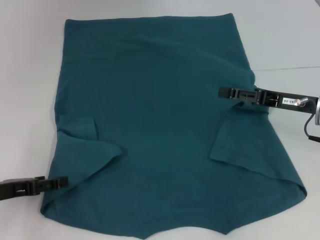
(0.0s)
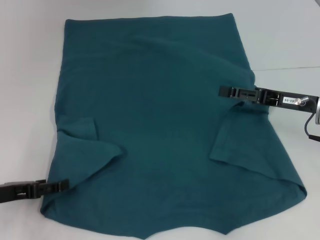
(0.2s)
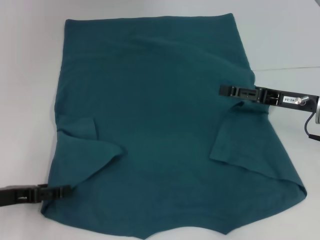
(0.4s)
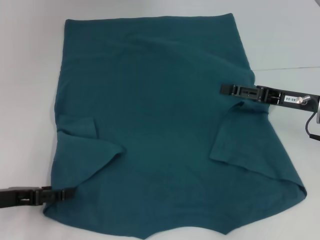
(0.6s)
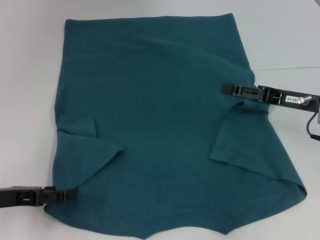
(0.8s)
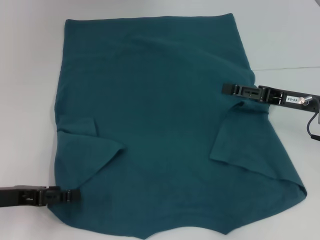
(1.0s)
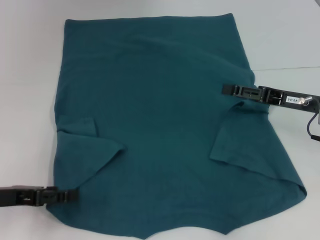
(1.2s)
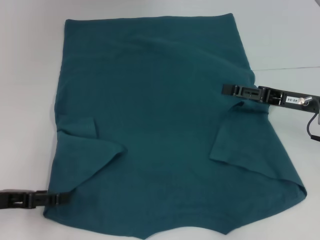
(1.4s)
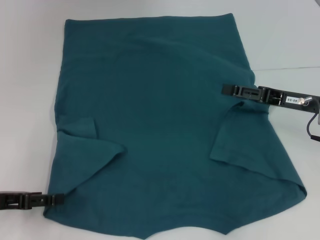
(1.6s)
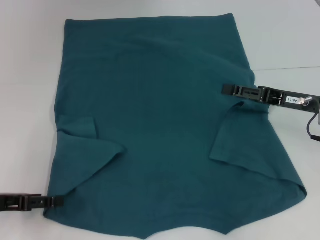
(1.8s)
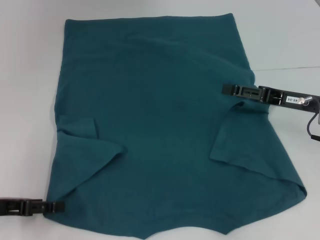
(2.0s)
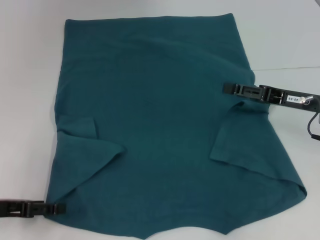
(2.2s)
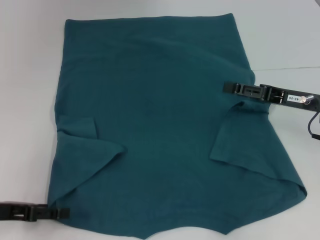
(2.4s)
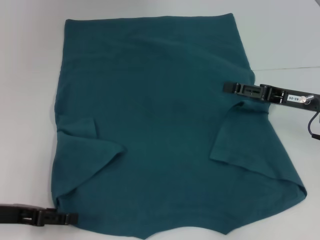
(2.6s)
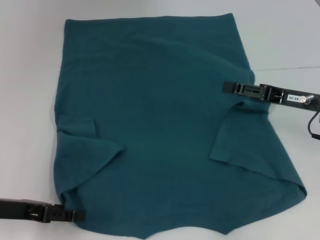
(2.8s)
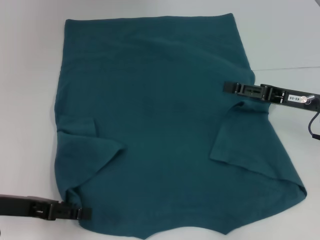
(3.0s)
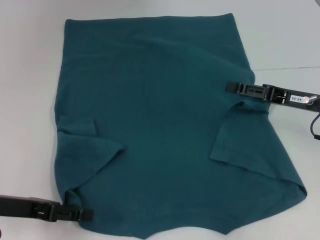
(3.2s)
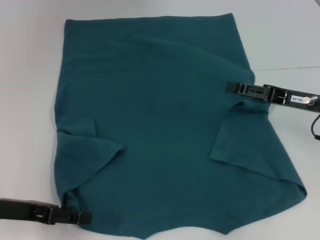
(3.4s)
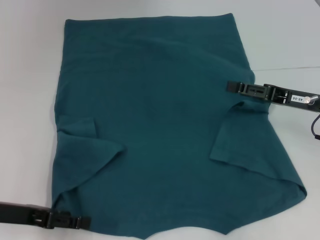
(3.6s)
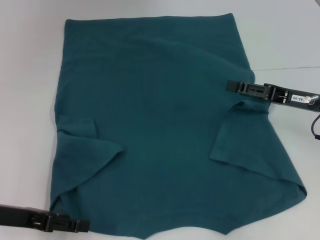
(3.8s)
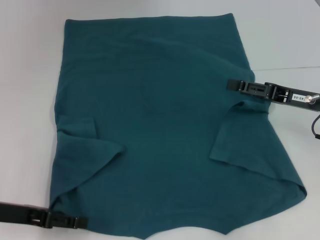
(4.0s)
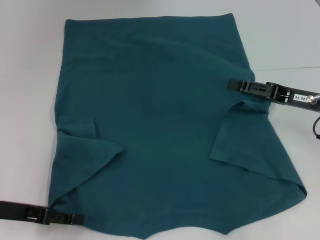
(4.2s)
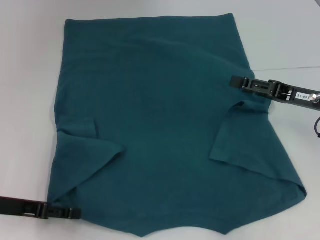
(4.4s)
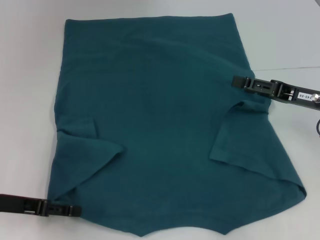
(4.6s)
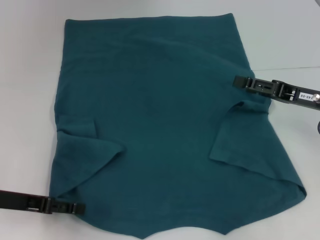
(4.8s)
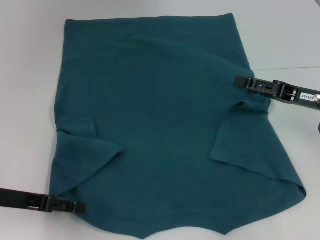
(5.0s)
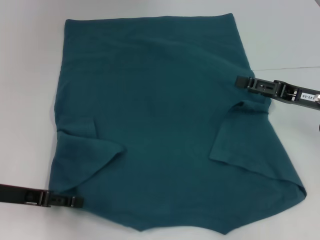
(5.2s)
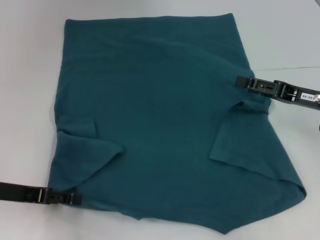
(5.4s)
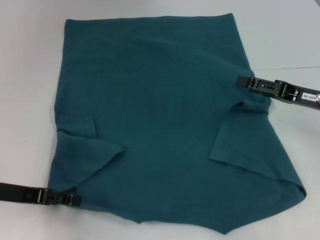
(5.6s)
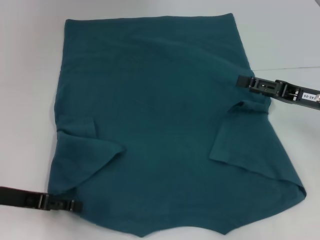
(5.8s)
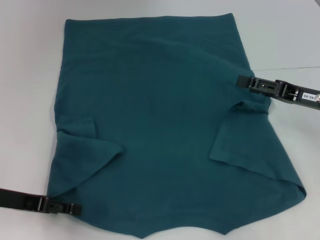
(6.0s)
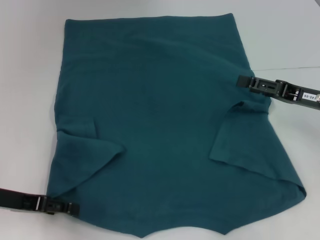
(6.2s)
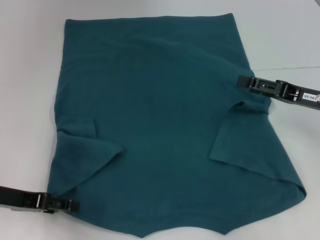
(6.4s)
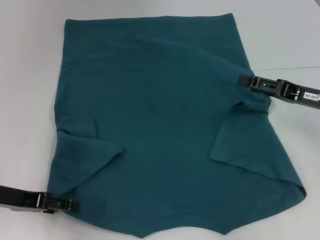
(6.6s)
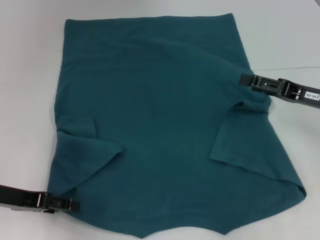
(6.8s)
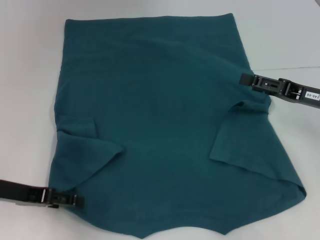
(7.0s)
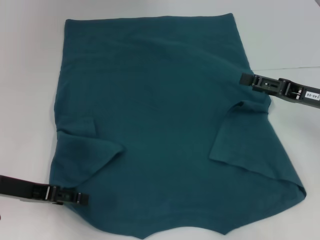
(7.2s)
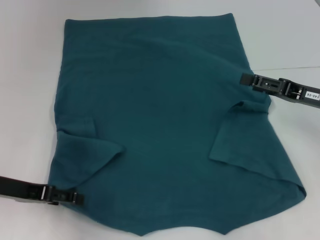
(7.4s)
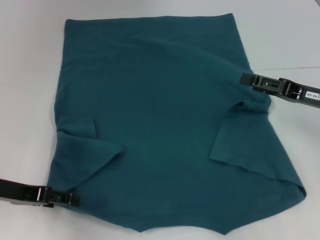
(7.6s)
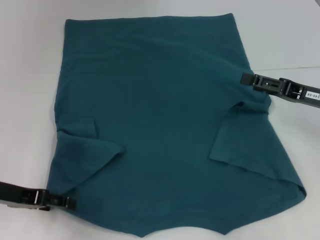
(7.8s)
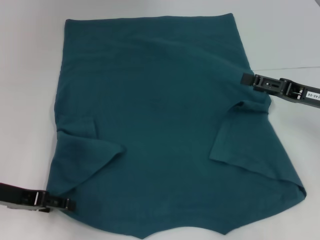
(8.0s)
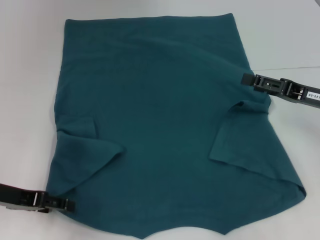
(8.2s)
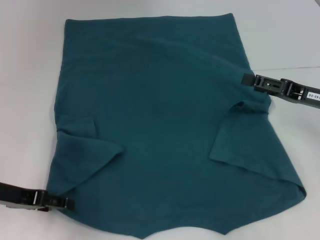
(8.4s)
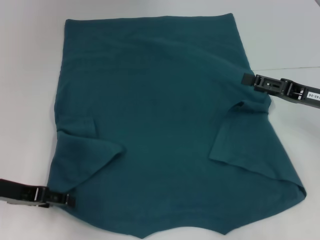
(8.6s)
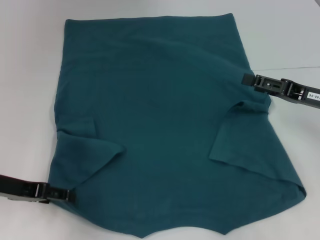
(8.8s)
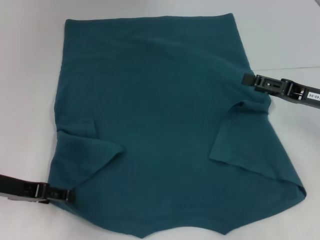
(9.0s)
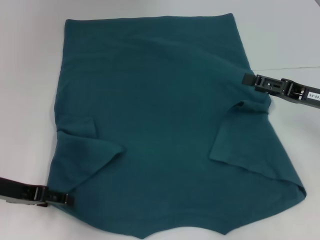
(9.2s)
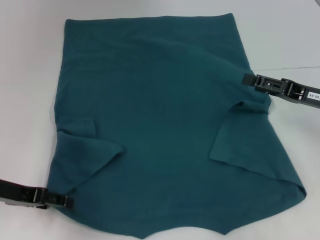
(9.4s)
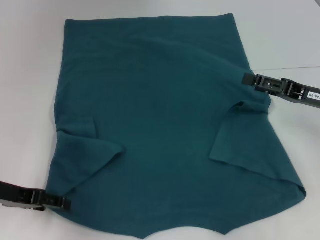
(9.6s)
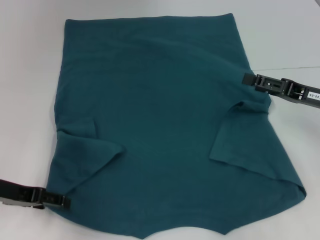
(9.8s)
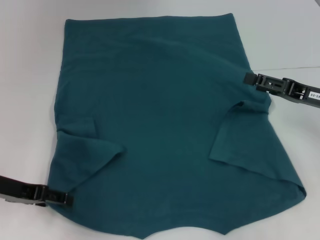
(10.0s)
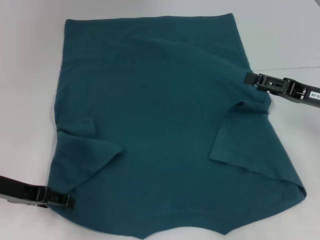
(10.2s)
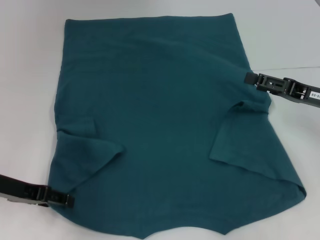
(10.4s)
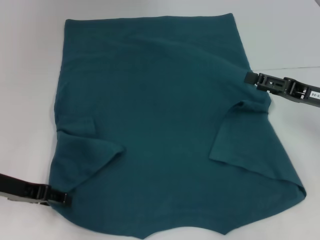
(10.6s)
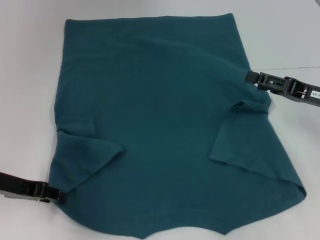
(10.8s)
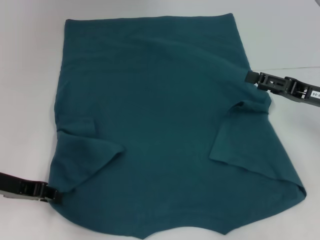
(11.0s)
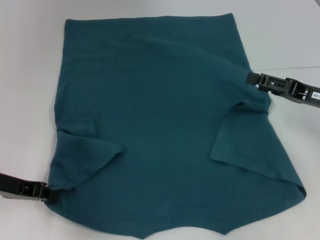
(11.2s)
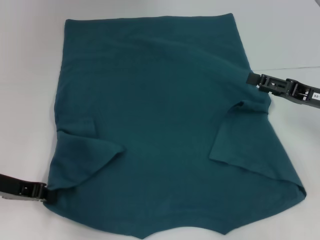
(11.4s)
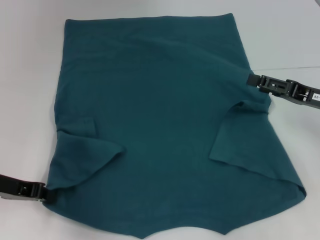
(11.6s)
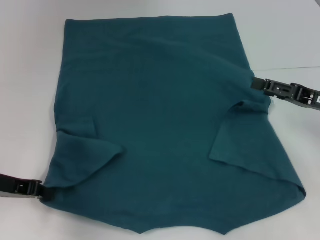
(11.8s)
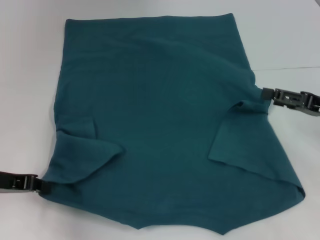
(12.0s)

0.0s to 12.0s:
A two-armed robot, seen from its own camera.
Step, 0.0s to 12.0s: Grab the bottom left corner with your left hand.
0.0s to 1.6s: There are only small adjustments of the grippers.
1.6s to 7.6s: The grippers move only a little.
7.6s to 9.0s: The two grippers keep their place.
9.0s to 10.4s: The two grippers keep their place.
10.4s to 12.0s: The left gripper closes its fingers.

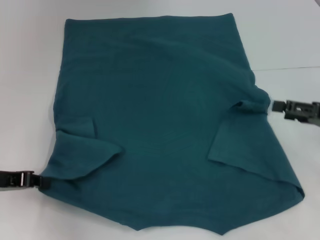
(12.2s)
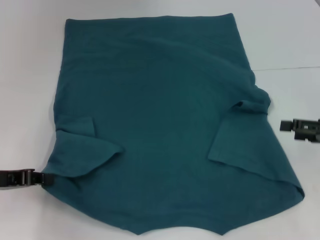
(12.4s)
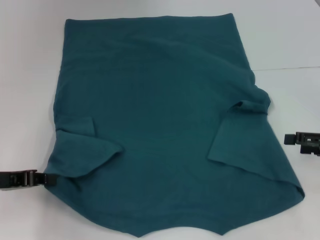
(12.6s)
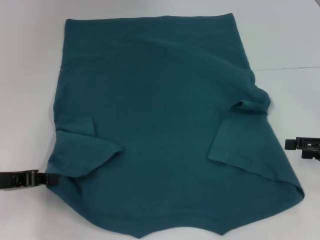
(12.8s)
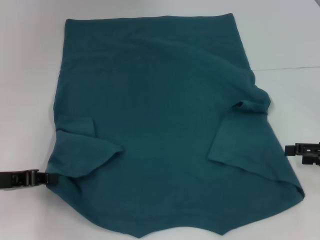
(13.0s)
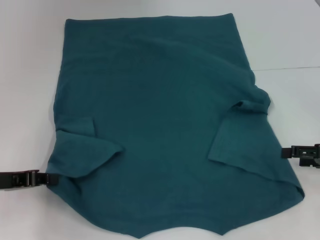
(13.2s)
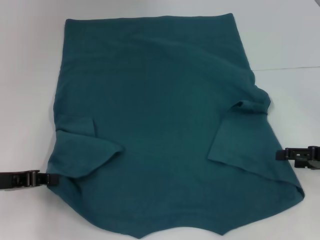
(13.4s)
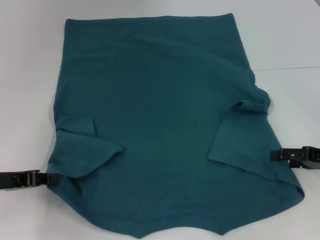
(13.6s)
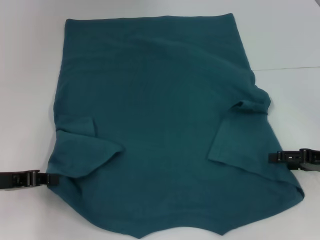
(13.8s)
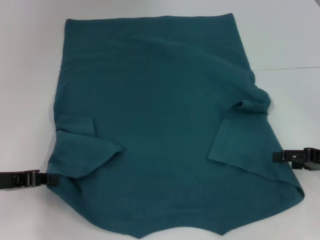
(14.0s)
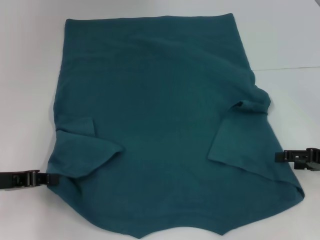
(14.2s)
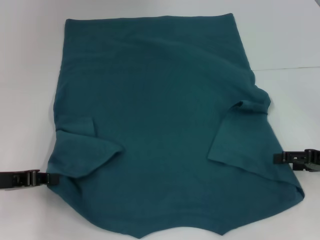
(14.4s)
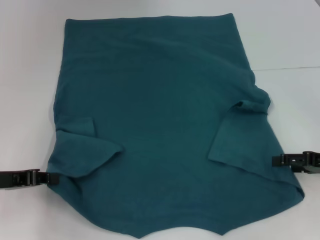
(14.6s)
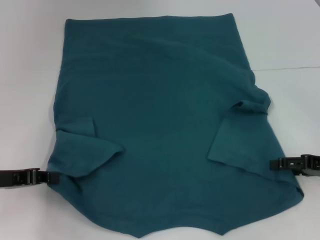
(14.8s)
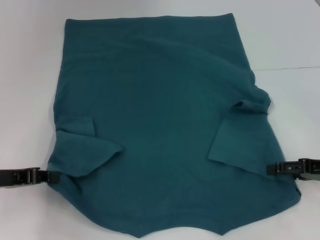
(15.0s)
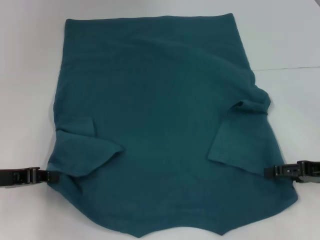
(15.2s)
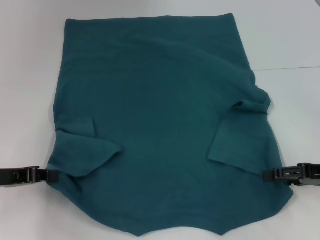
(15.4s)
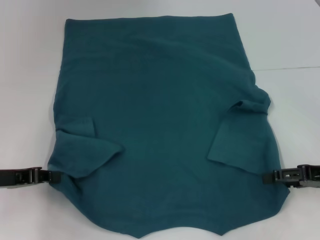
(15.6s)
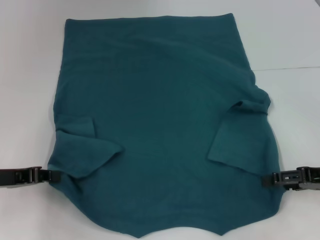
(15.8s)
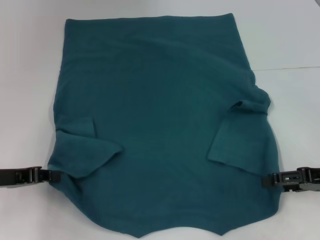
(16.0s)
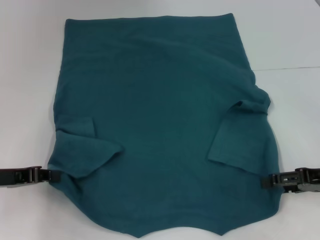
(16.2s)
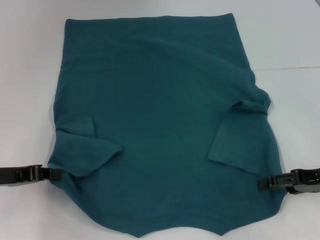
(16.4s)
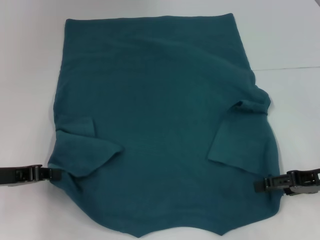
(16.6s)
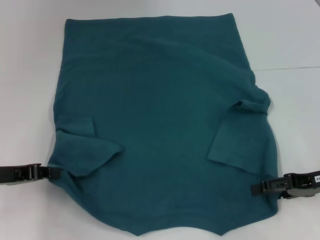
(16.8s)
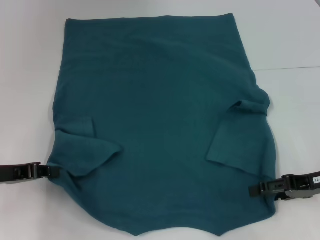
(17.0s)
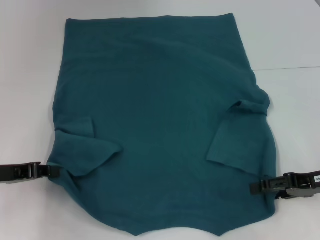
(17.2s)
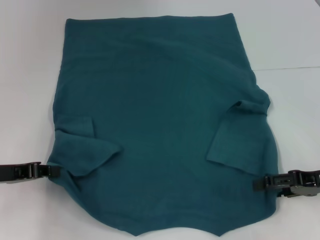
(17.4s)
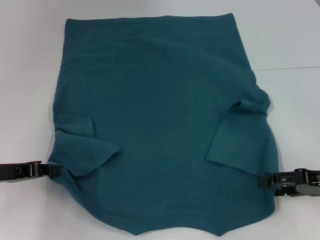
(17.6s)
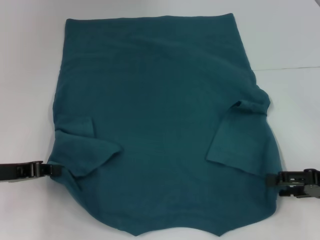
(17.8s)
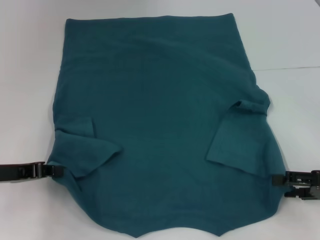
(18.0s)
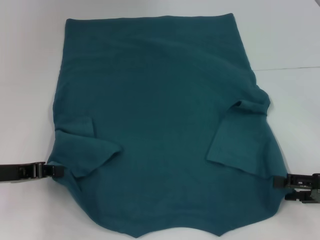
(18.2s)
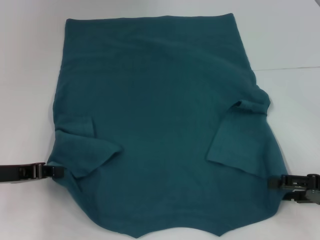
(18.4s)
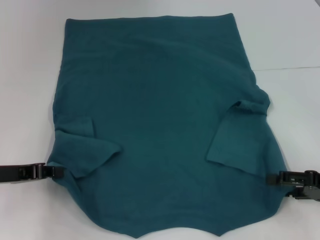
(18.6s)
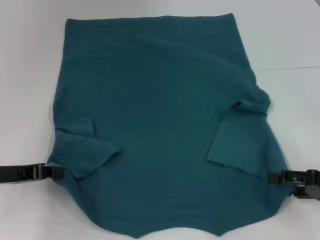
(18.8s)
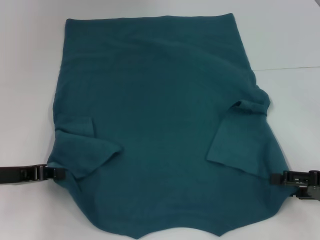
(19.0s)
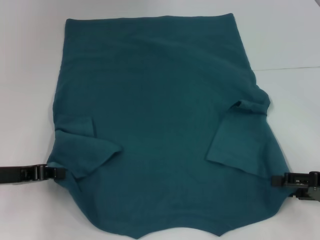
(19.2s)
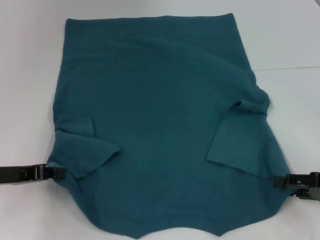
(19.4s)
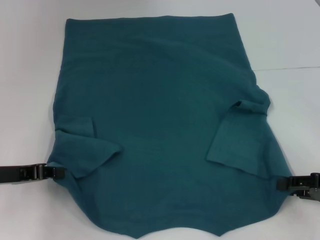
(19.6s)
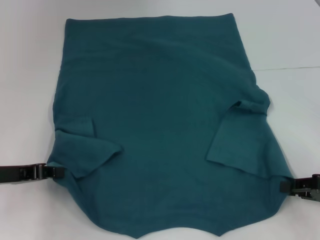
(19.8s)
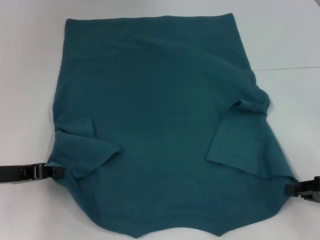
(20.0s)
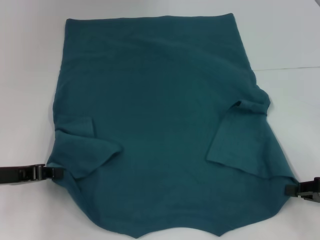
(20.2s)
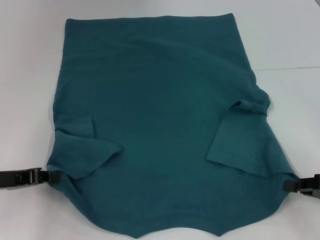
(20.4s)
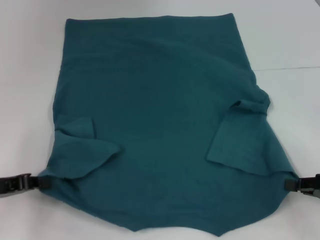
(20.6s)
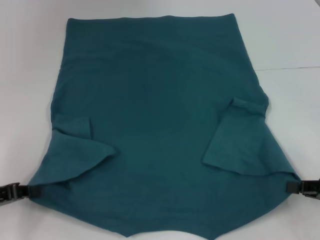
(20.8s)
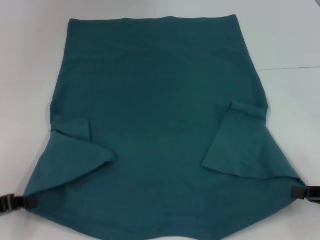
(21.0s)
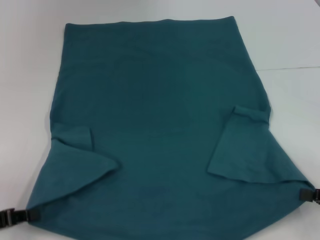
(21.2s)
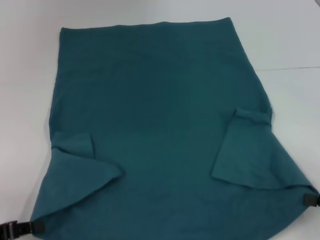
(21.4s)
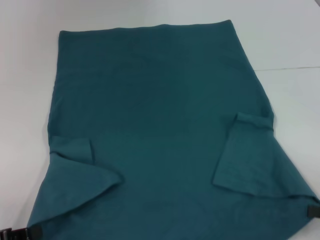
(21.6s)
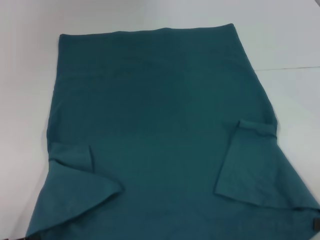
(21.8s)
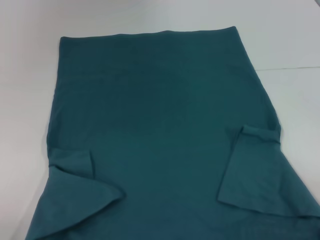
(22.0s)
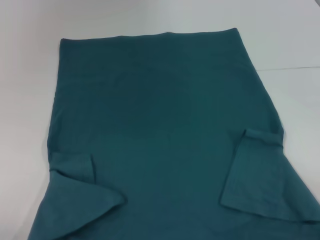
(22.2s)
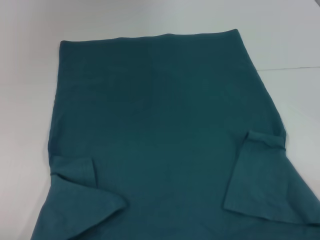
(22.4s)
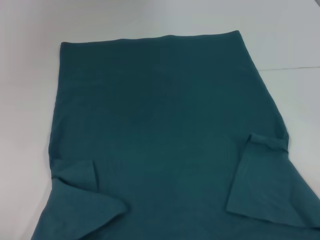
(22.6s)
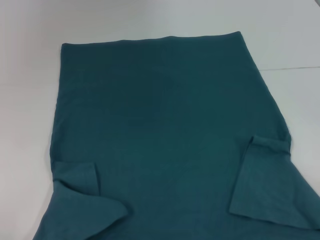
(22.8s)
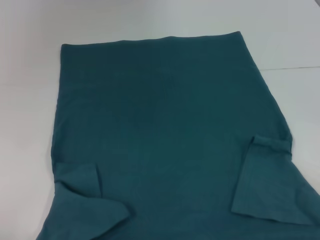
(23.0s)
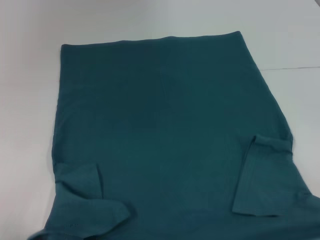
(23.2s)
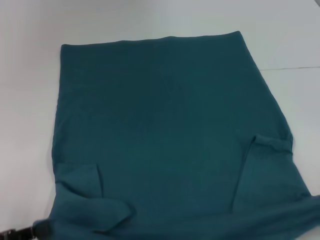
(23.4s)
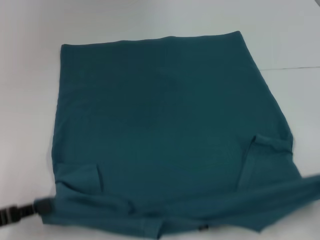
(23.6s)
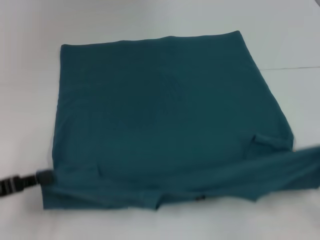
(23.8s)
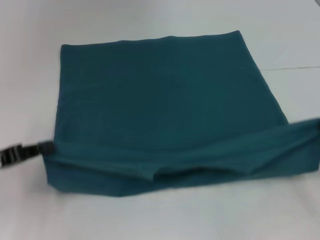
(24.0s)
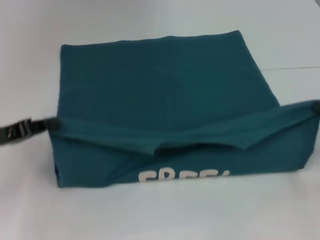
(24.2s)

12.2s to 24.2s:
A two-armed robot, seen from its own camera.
Step, 12.2s to 20.2s: Grab the bottom right corner with your right hand.
12.2s to 13.8s: The grippers move only a little.
13.8s to 16.6s: The grippers stay close to where they were, moving slightly.
16.6s to 18.2s: The right gripper shifts by approximately 5 cm.
18.2s to 19.8s: The right gripper closes.
19.8s to 21.2s: The left gripper is displaced backward by roughly 5 cm, while the right gripper closes.
21.2s to 22.6s: The two grippers go roughly 10 cm backward.
22.6s to 24.2s: Both grippers move forward, some 15 cm.
